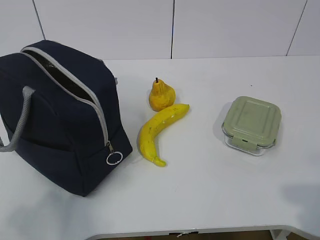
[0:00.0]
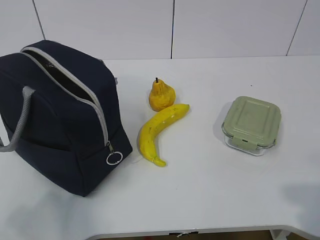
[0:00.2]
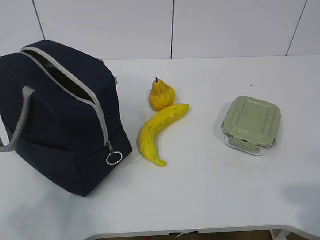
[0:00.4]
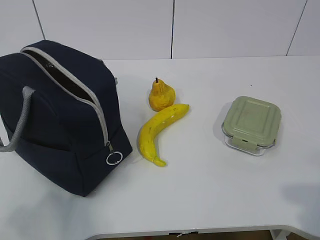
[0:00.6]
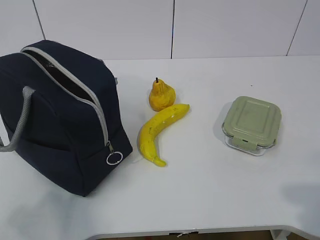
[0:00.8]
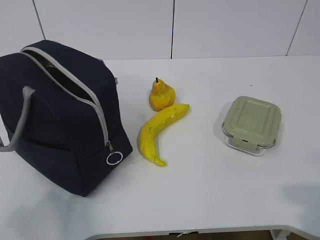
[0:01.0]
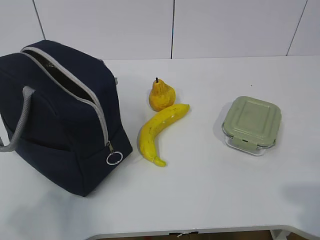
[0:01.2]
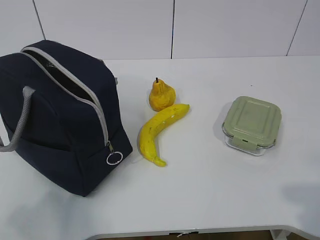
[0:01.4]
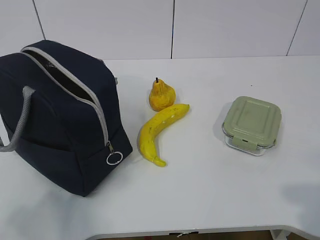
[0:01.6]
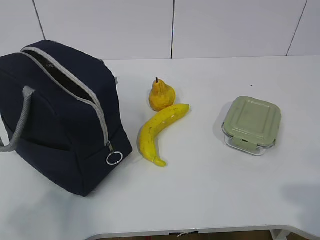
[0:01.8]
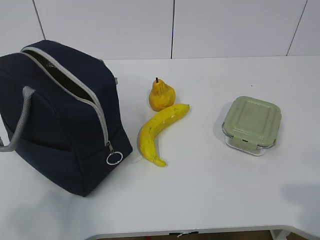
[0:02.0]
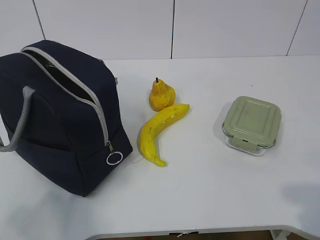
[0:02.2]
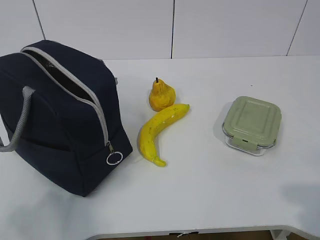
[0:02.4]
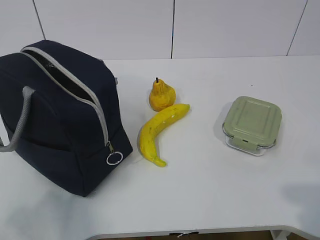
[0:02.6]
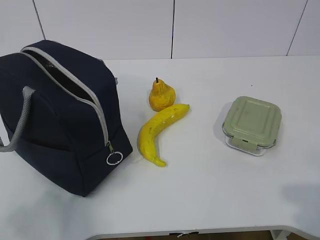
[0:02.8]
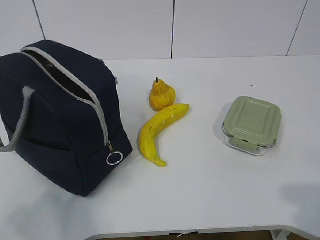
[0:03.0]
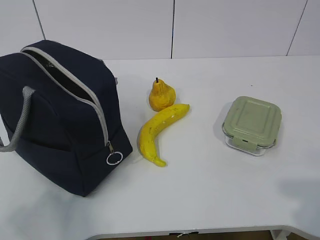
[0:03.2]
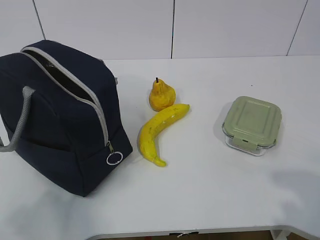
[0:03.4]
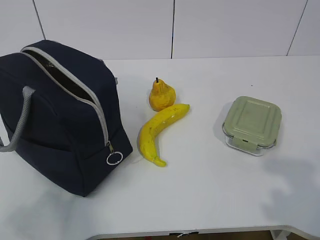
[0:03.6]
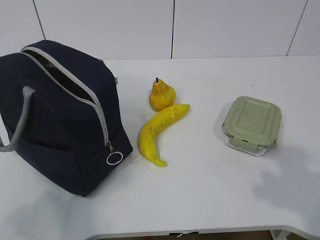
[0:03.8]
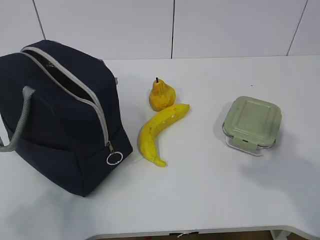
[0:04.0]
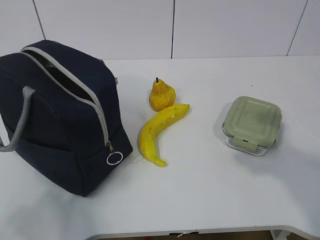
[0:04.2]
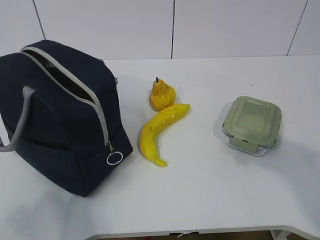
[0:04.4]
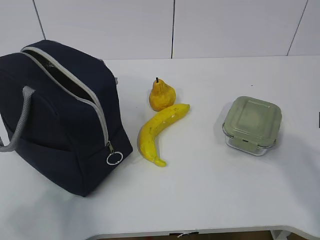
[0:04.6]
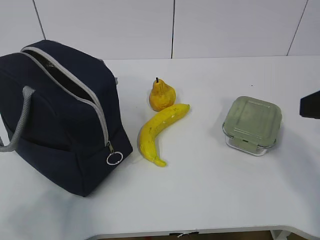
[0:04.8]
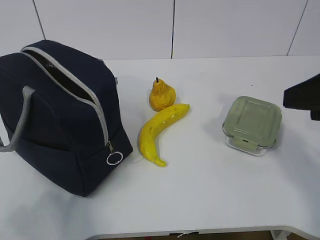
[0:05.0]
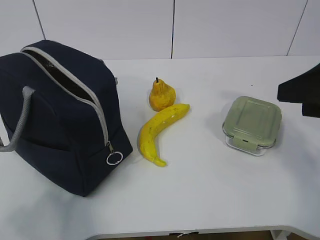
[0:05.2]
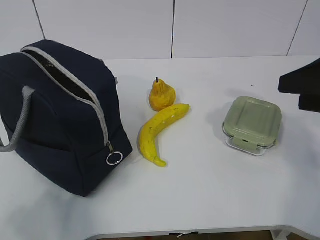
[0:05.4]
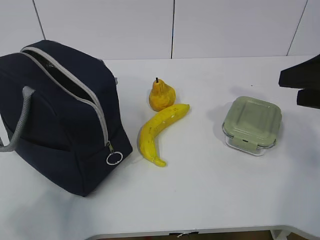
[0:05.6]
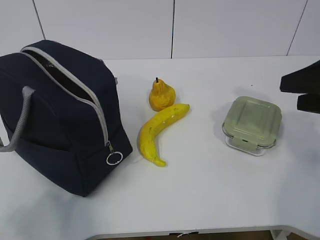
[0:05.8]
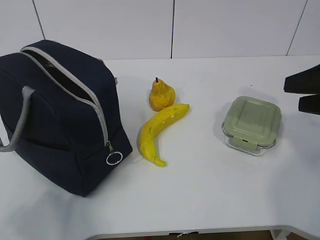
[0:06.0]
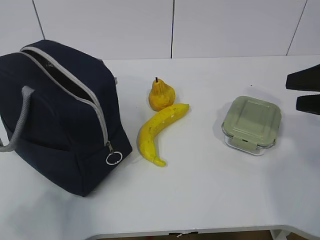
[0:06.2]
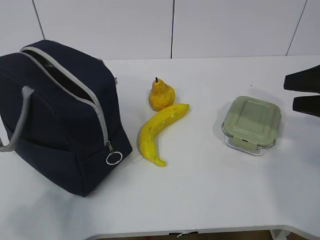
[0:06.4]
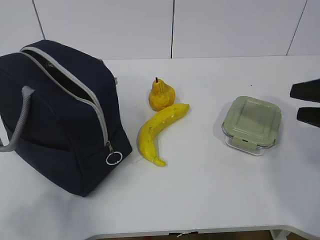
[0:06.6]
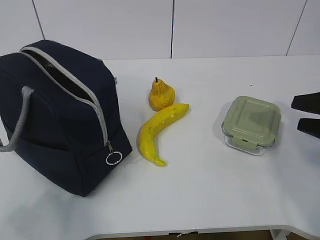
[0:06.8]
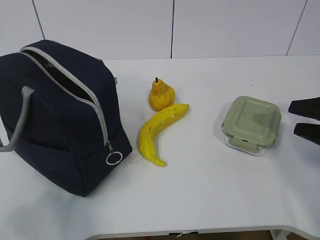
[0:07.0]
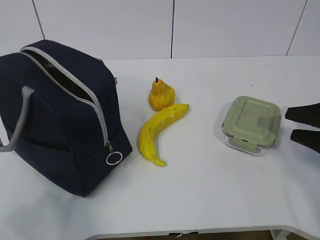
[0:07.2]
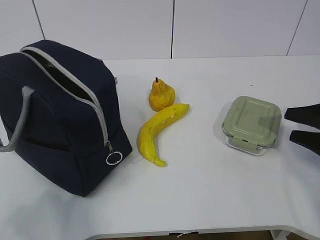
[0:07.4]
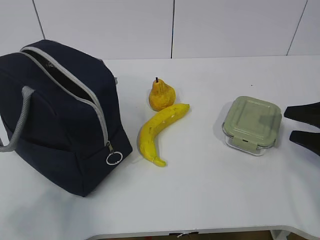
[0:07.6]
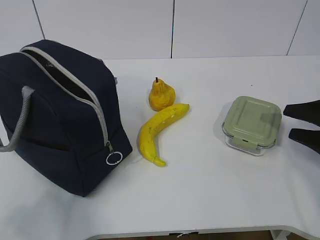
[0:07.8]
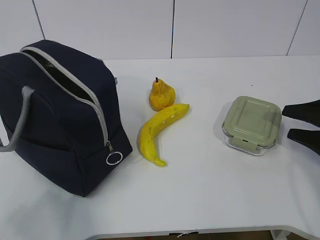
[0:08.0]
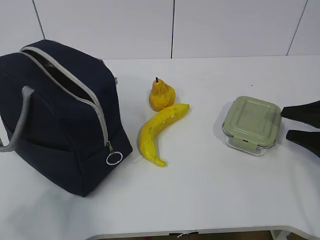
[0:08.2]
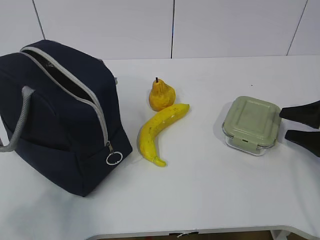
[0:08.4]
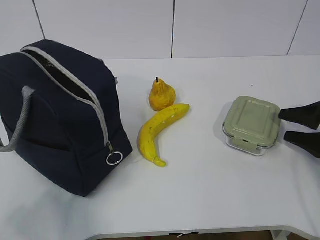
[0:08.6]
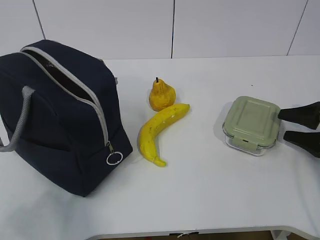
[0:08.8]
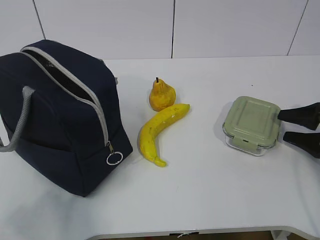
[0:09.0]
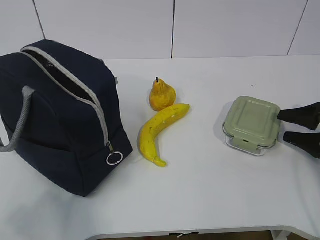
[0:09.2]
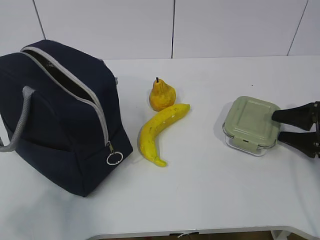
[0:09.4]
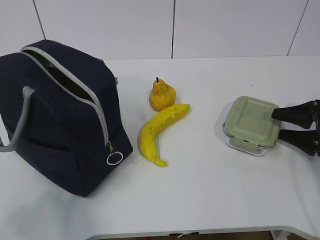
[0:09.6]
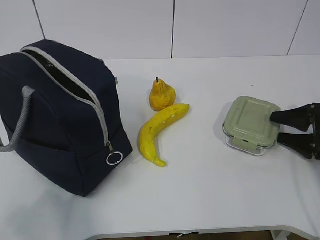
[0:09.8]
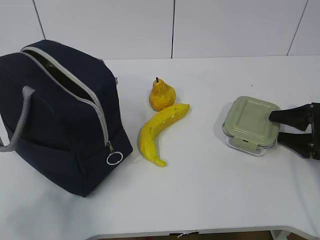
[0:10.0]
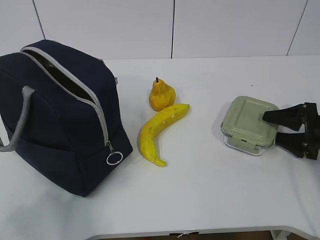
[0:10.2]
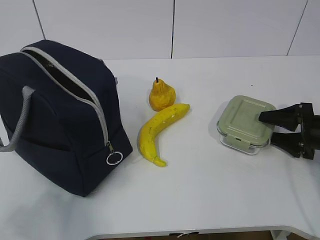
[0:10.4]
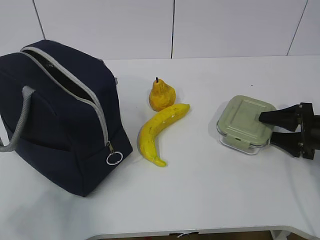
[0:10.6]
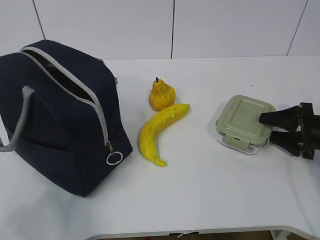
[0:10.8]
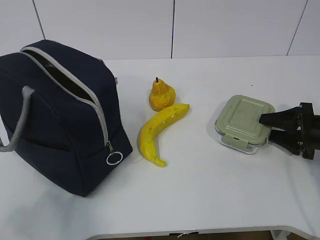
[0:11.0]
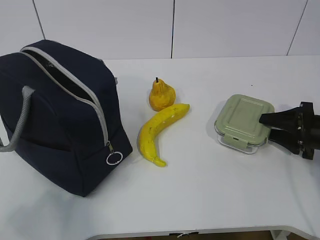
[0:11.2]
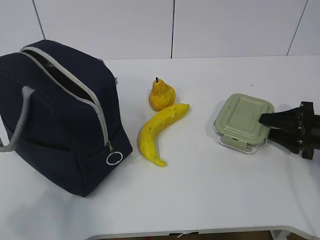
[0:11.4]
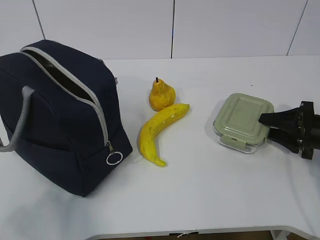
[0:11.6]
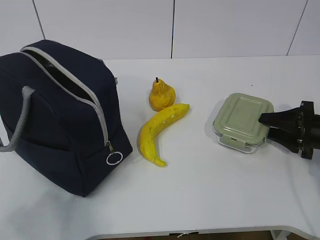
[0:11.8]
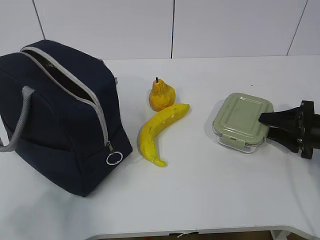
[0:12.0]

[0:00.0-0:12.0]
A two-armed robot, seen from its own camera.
Step, 0:00.0 to 0:10.2: Grab the lunch box with your right hand.
0:01.6 to 0:03.0: The two grippers keep their place.
0:03.0 to 0:04.4: The right gripper travels forward and upward by some 15 cm.
0:04.4 to 0:06.0: The right gripper shifts about 15 cm forward and downward.
0:06.0 to 0:07.6: The right gripper heads downward and to the right, covering about 15 cm.
0:07.6 to 0:09.0: The right gripper ends up about 5 cm from where it was.
0:09.0 to 0:10.4: There are only small adjustments of the grippers.
0:10.4 to 0:12.0: The right gripper closes.

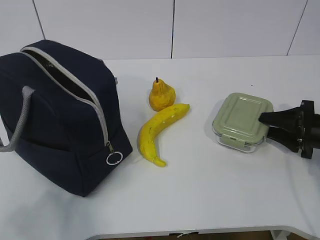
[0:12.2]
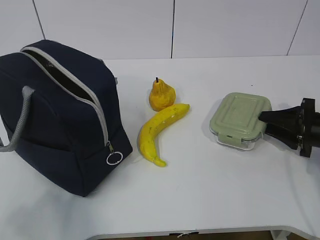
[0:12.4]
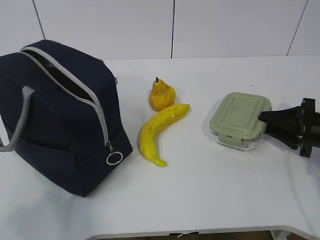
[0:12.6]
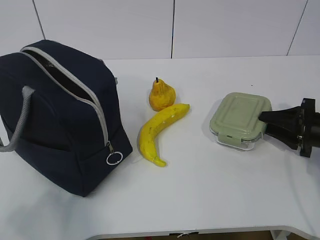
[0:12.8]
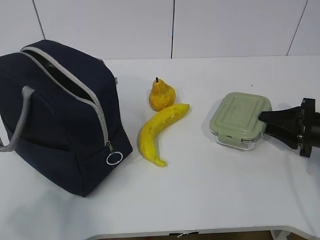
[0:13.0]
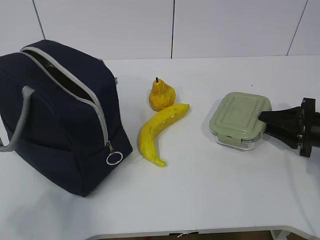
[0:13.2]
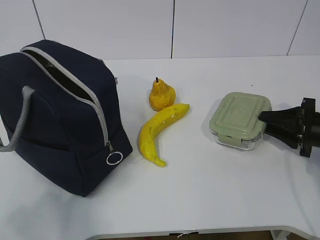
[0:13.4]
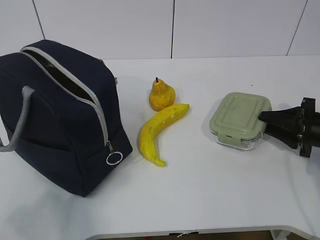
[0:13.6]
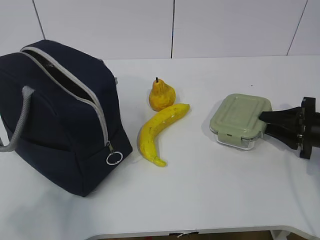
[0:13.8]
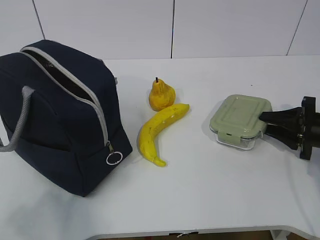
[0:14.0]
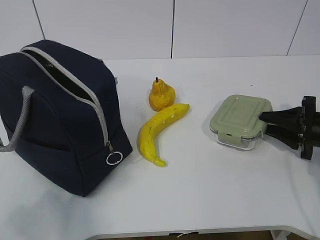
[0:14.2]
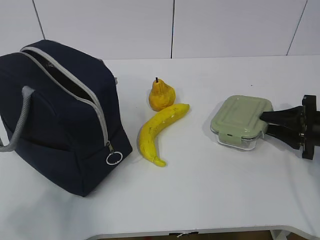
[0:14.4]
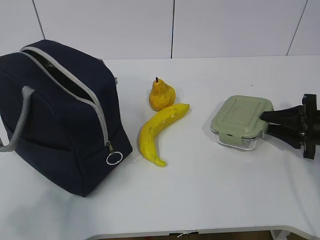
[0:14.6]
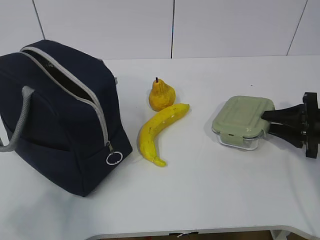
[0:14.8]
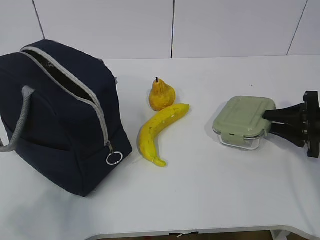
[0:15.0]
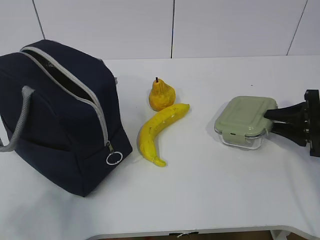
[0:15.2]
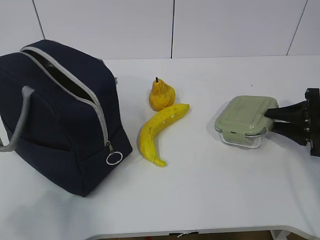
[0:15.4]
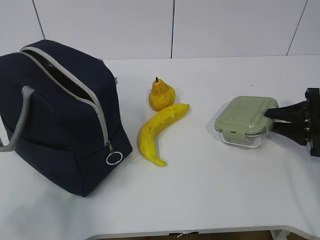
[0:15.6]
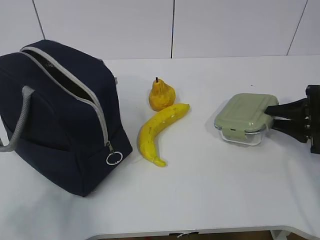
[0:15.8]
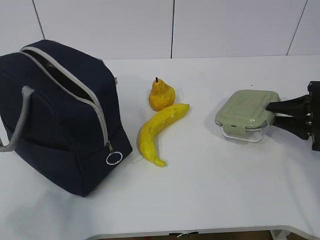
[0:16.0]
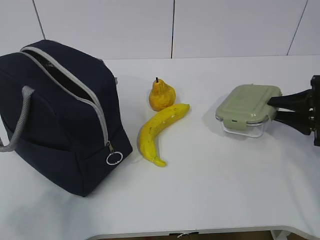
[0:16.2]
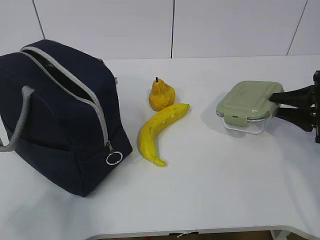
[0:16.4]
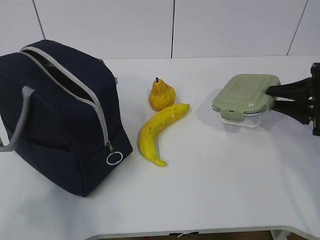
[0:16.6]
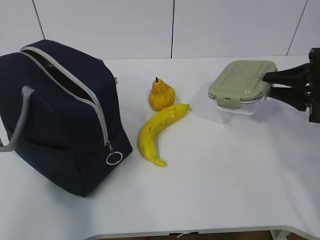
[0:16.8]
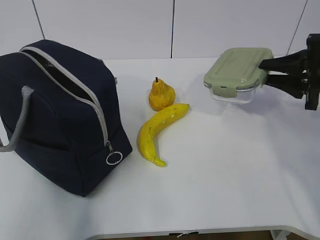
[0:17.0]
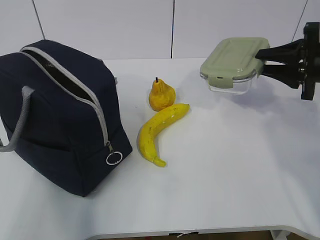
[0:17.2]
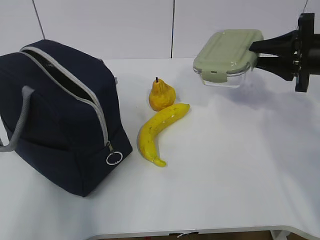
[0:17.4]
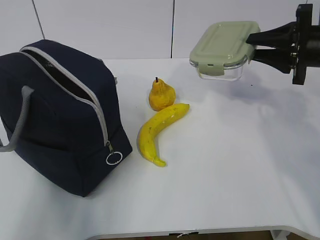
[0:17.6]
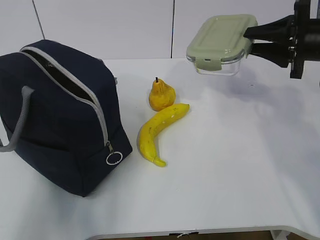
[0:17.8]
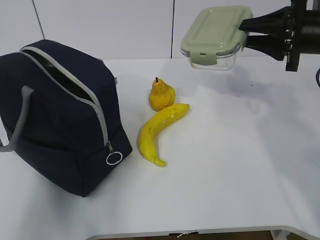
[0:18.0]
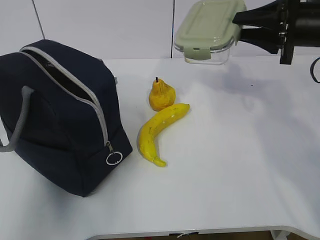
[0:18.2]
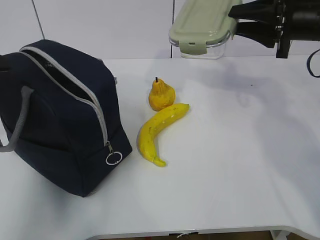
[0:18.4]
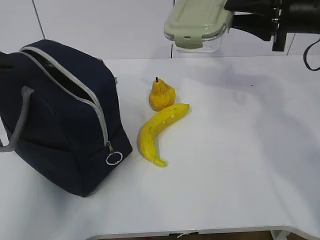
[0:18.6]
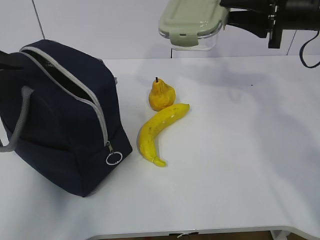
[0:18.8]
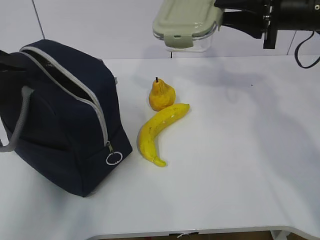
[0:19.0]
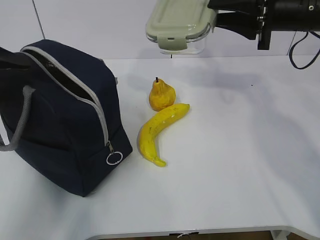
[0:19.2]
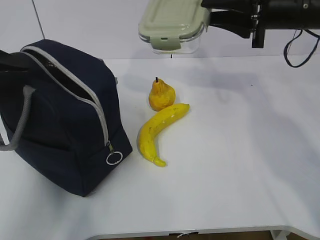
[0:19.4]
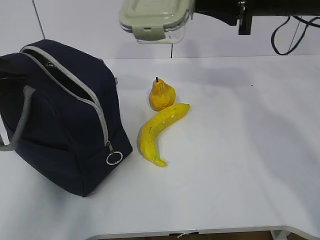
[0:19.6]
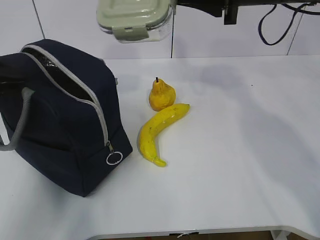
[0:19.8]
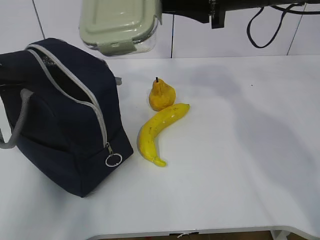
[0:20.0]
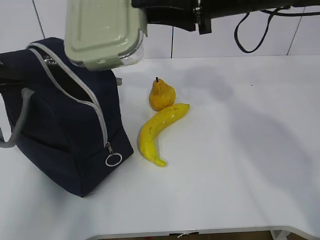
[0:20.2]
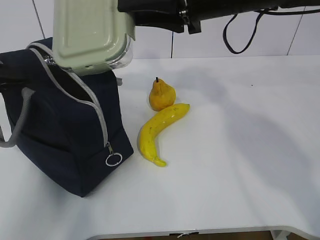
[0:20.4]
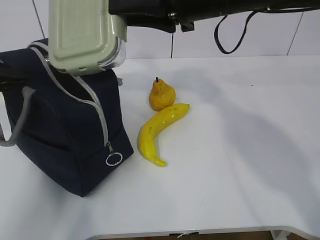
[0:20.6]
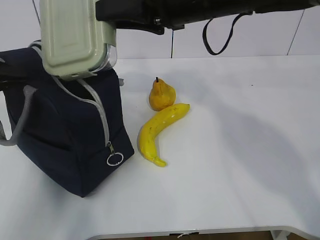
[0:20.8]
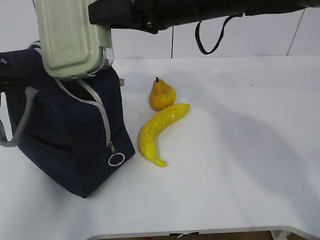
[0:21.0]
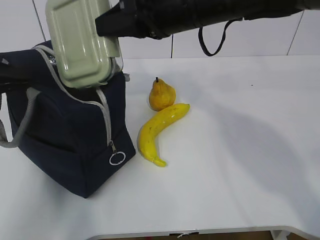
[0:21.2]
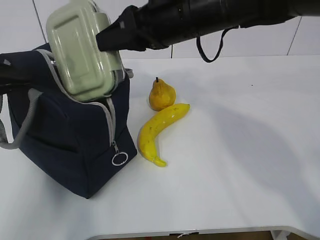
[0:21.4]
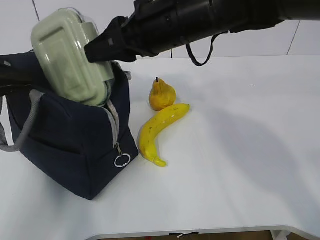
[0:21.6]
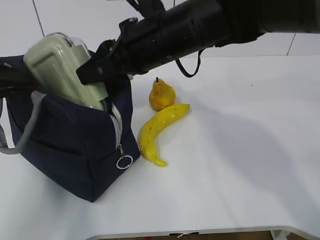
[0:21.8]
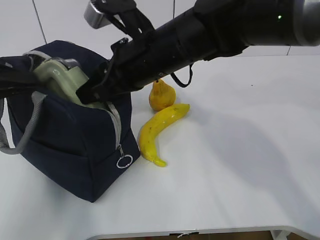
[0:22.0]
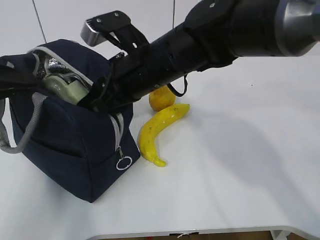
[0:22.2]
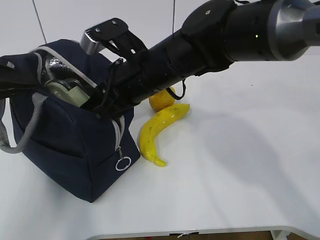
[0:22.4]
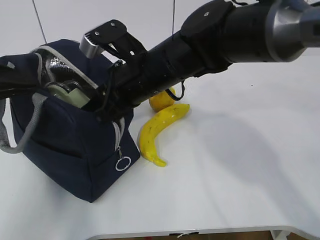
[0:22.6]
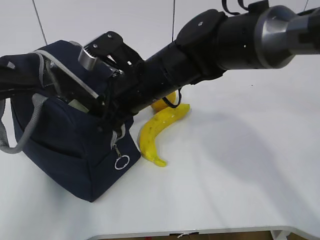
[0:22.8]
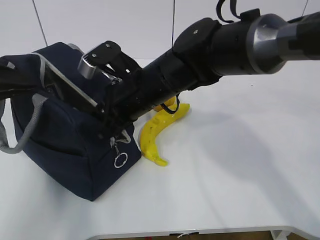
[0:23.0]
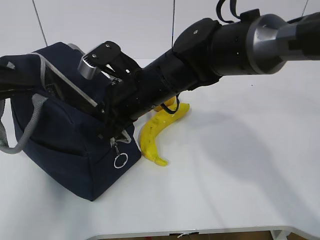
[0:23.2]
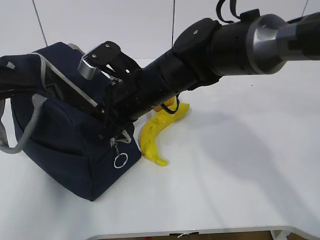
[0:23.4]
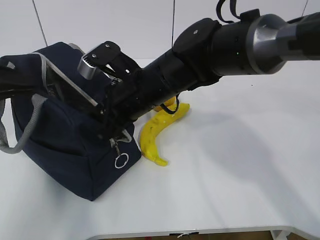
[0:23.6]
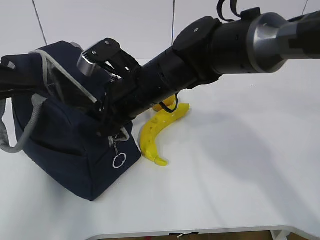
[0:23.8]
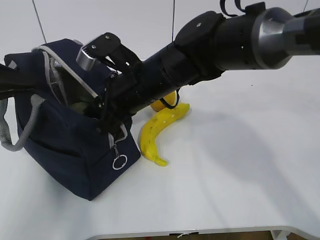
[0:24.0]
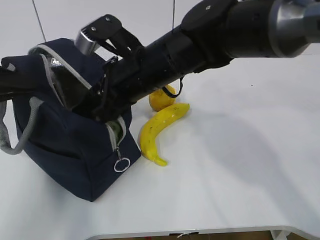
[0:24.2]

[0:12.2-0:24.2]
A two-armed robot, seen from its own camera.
Step, 0:12.2 to 0:17.2: Grab the lunch bag with your left hand.
Step, 0:17.4 to 0:20.0: Place it into the bag with your right hand.
0:12.2 to 0:13.8: The two grippers keep their place.
0:13.8 to 0:15.2: There are only small adjustments of the grippers.
0:15.2 to 0:16.6: The right gripper changes place by roughly 5 cm.
0:16.6 to 0:18.2: The left gripper is displaced forward by about 20 cm. Meanwhile the right gripper heads upward and to the left, covering about 15 cm.
0:18.2 to 0:19.8: The left gripper moves forward, about 5 cm, and closes its fingers, while the right gripper is displaced to the left and upward by approximately 10 cm.
0:19.8 to 0:21.2: The right gripper moves to the left, about 10 cm.
0:21.2 to 0:22.6: The right gripper heads downward and to the left, covering roughly 10 cm.
0:22.6 to 0:24.2: There are only small adjustments of the grippers.
